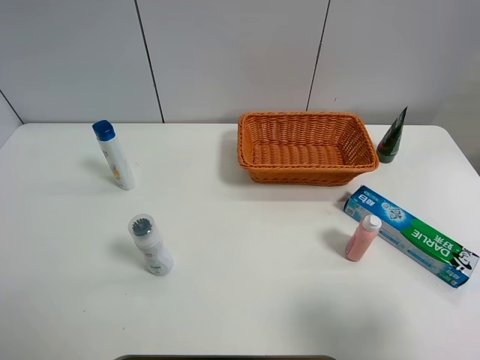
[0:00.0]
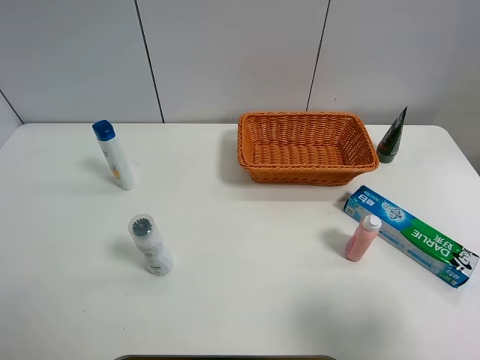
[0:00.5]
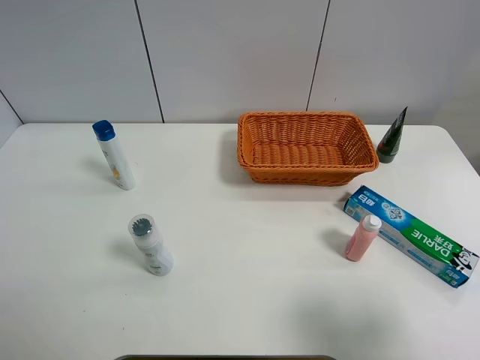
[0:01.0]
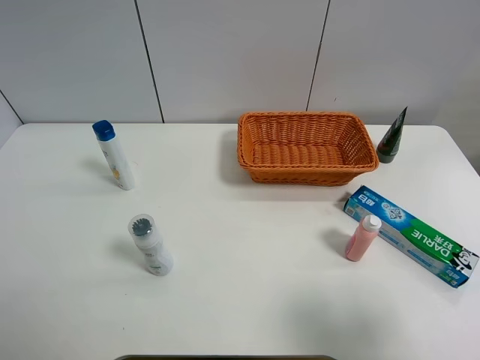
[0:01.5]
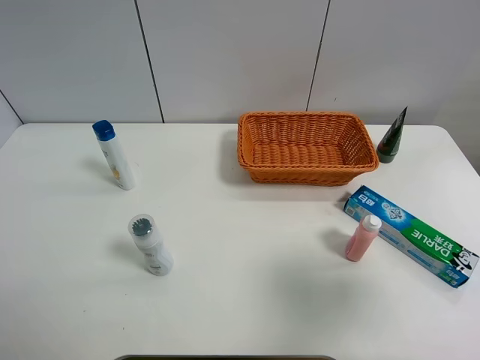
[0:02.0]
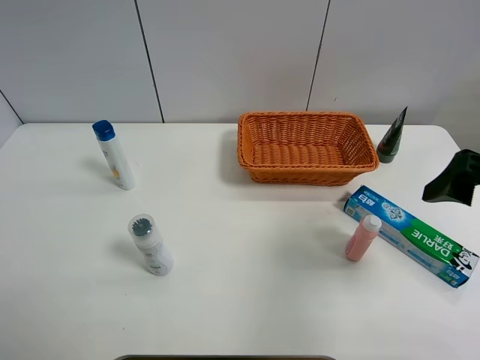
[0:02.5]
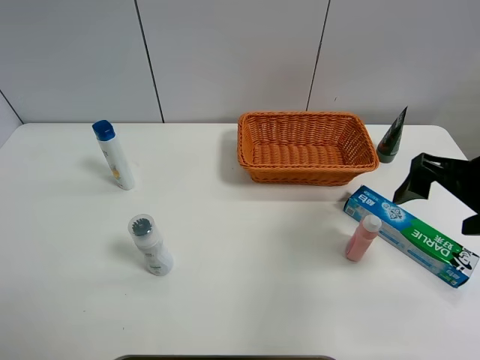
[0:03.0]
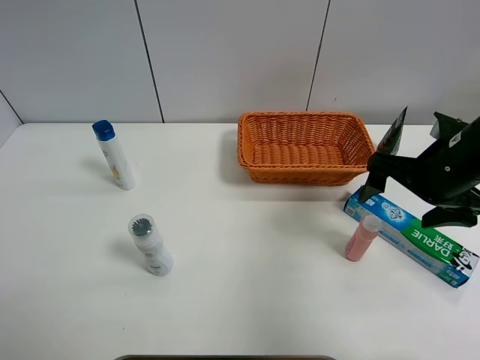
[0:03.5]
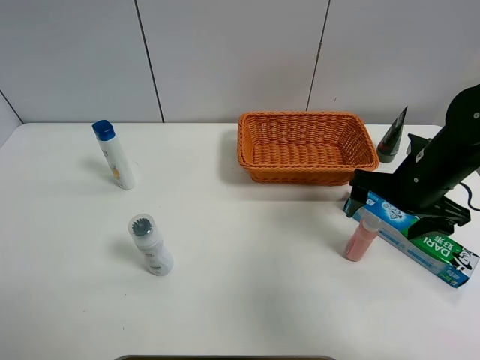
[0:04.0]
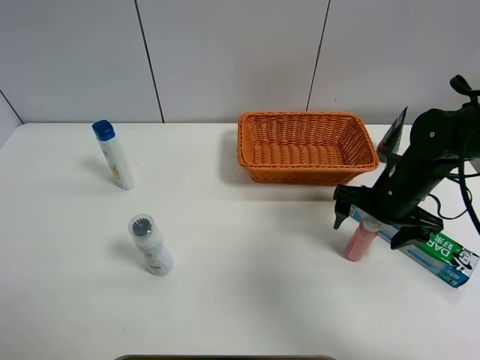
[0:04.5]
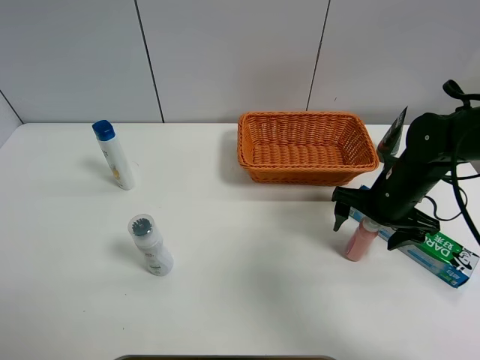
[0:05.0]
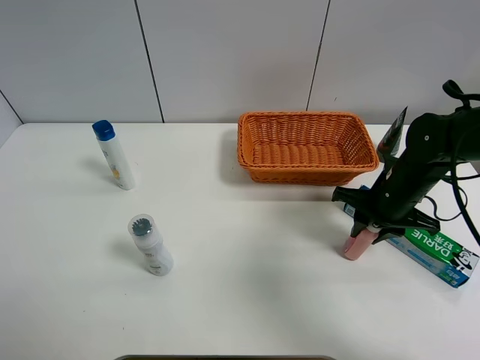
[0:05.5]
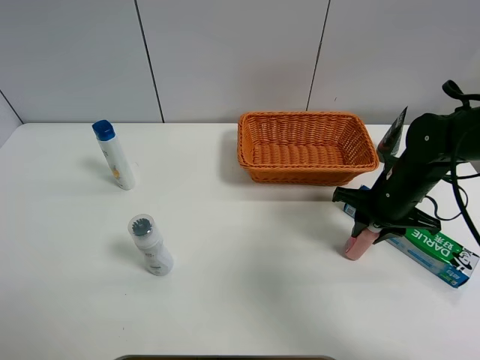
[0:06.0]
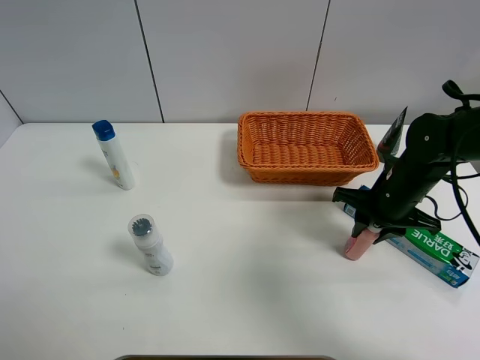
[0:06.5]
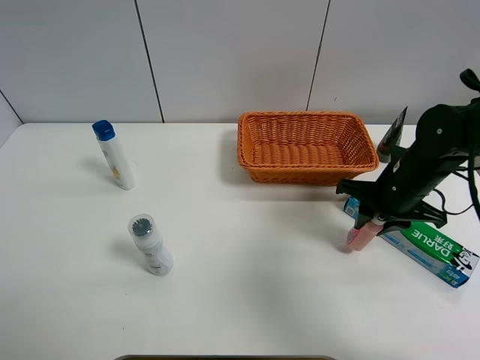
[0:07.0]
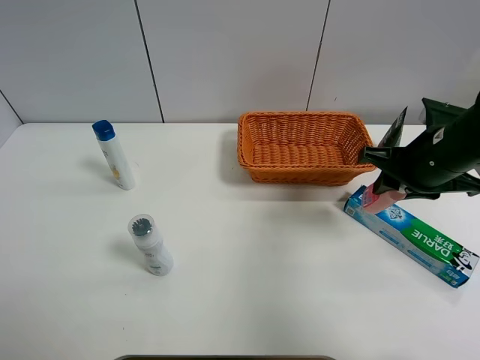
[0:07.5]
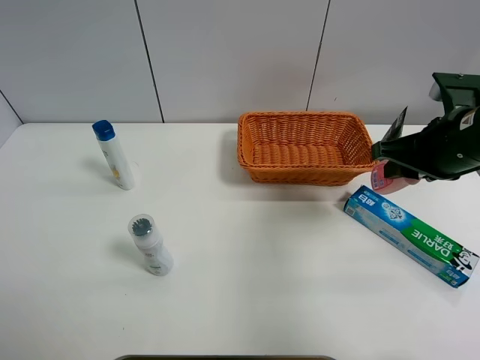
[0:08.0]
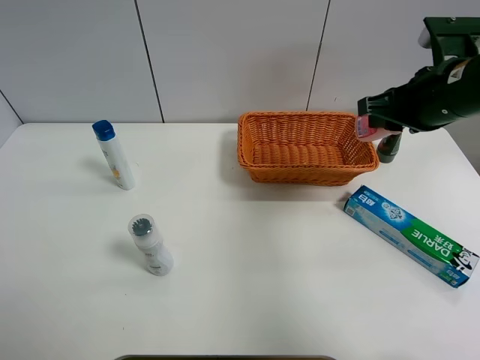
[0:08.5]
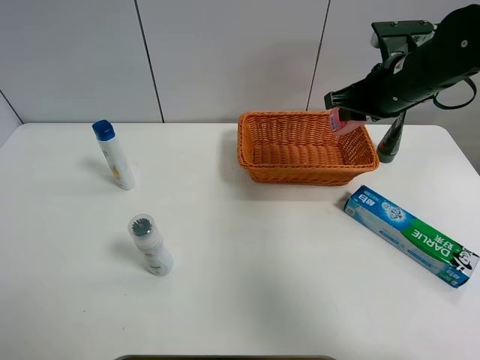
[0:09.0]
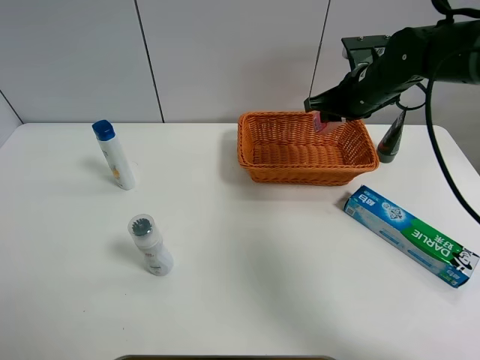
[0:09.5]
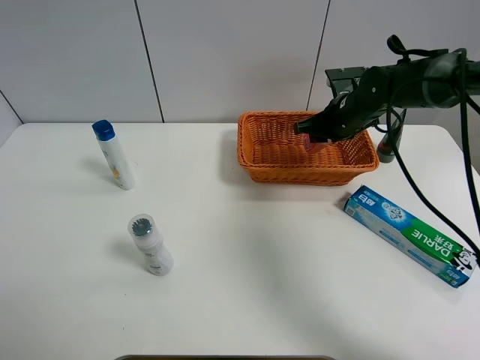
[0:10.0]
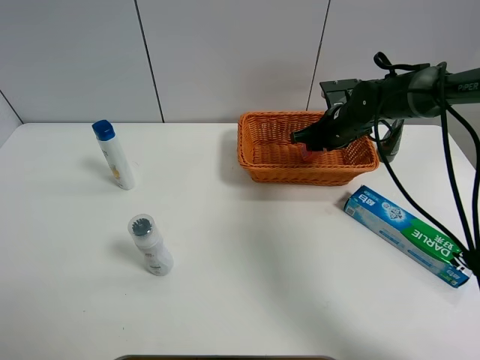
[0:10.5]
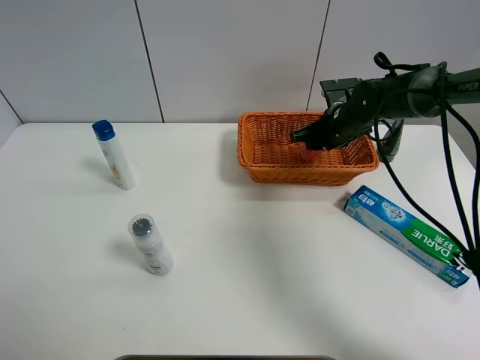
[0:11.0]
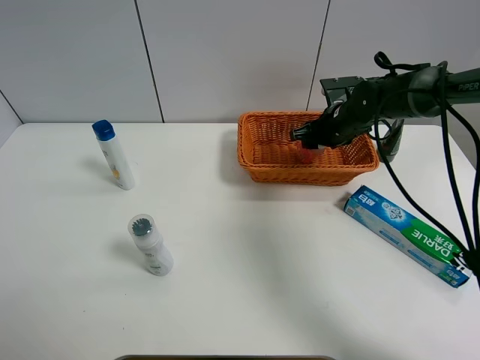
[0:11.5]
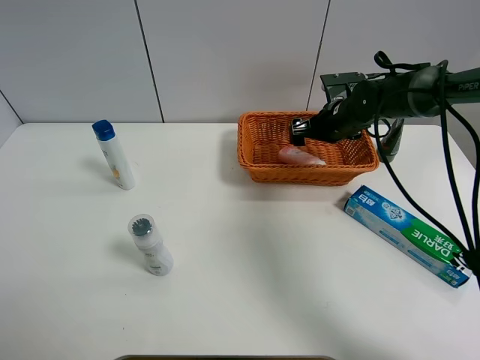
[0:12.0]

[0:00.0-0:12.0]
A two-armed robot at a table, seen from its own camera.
Task of the whole recording: Place the object closest to the toothpaste in the basket.
Step, 0:00.0 to 0:05.5: Grasp the pink laundry detergent with right gripper.
0:00.0 to 0:02.0: The right gripper moves forward and upward, about 10 cm.
0:02.0 to 0:04.0: The right gripper travels forward and downward by approximately 25 cm.
0:04.0 to 0:06.0: The right gripper changes place by approximately 5 cm, and closes up.
0:06.0 to 0:08.0: The right gripper is displaced upward by approximately 15 cm.
0:08.0 to 0:10.0: The right gripper travels forward and downward by some 20 cm.
0:10.0 to 0:12.0: The right gripper opens.

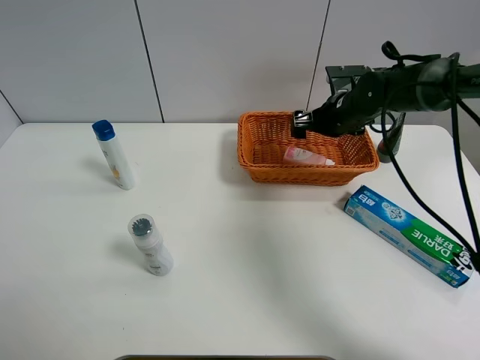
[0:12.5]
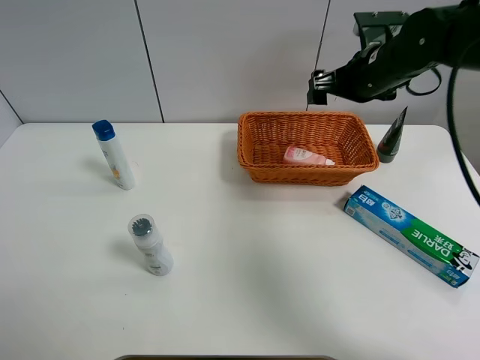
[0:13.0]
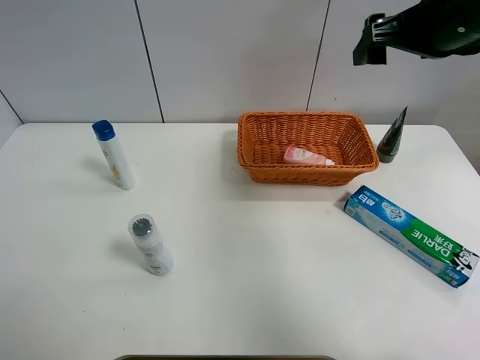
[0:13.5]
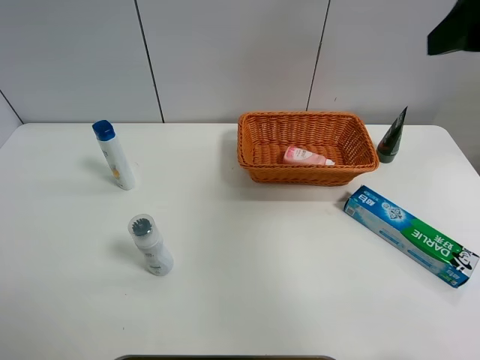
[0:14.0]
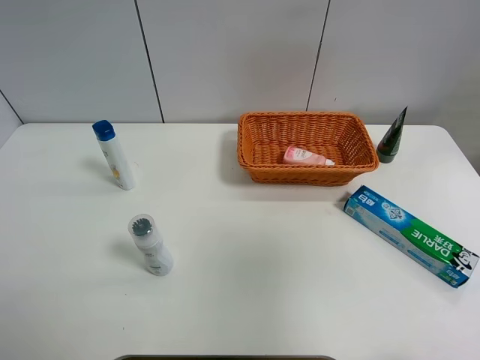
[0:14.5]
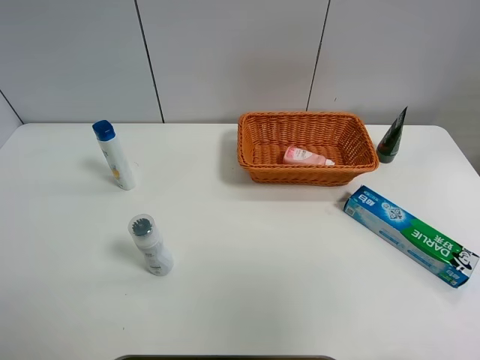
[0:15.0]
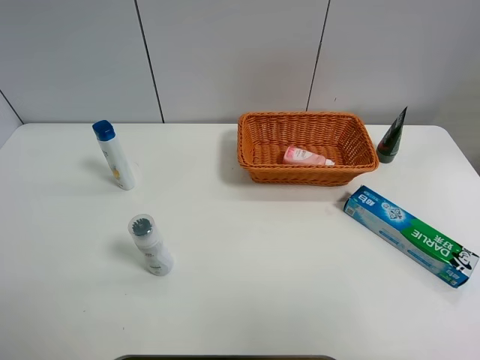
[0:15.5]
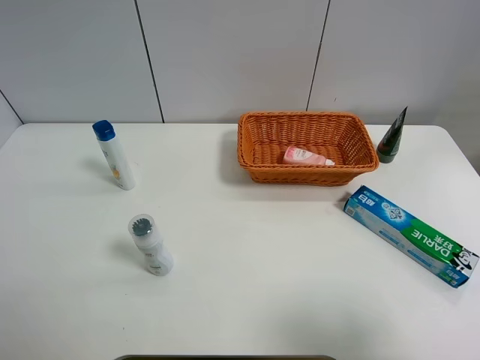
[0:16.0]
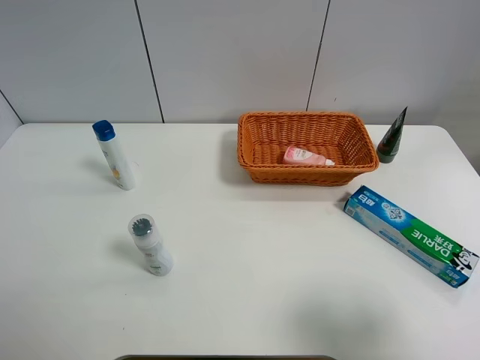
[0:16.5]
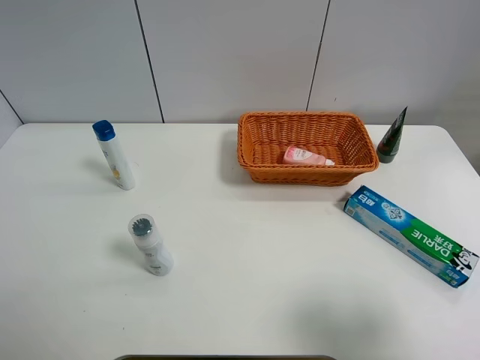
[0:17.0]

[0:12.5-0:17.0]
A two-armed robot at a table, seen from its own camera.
Task of the whole recording: Place the object closest to the toothpaste in the basket.
0:12.5 to 0:14.5: The right gripper heads backward and upward, covering some 50 cm.
0:14.5 to 0:17.0: The right gripper moves downward, approximately 20 cm.

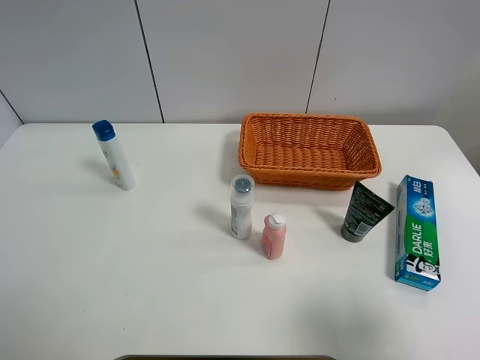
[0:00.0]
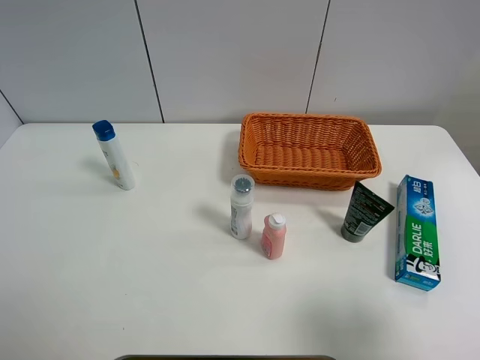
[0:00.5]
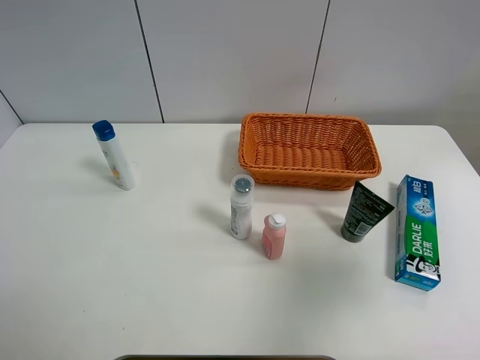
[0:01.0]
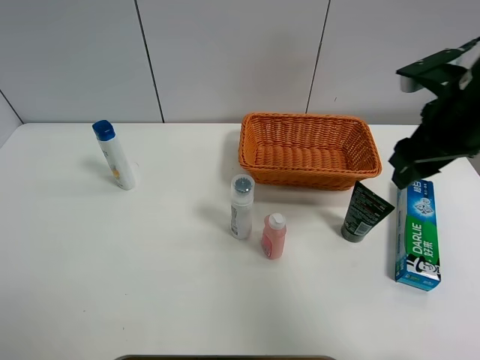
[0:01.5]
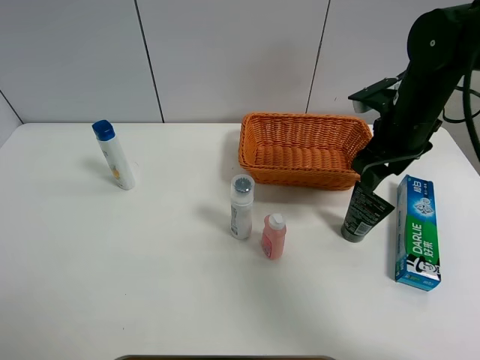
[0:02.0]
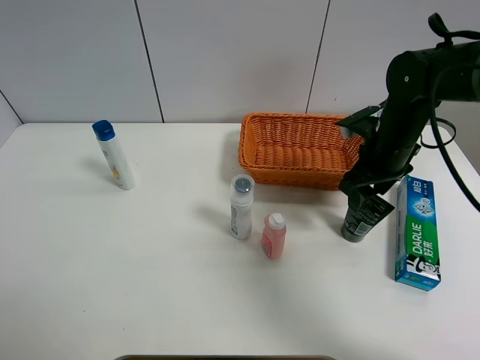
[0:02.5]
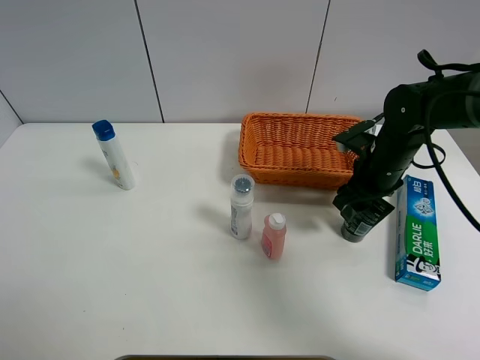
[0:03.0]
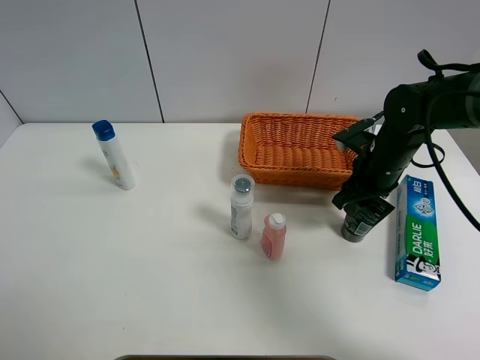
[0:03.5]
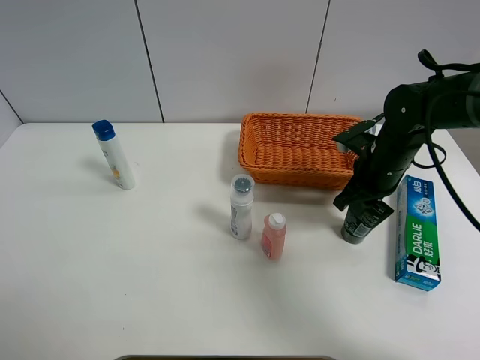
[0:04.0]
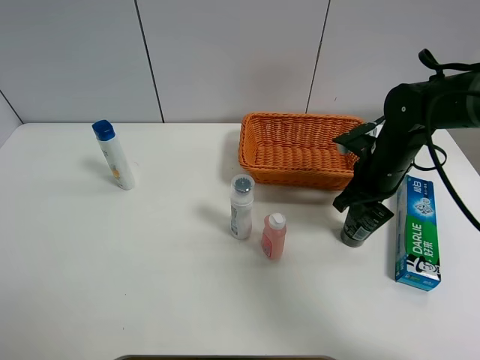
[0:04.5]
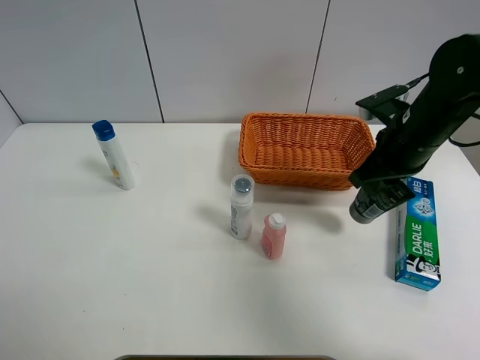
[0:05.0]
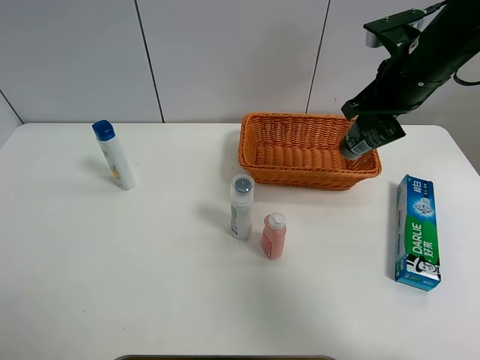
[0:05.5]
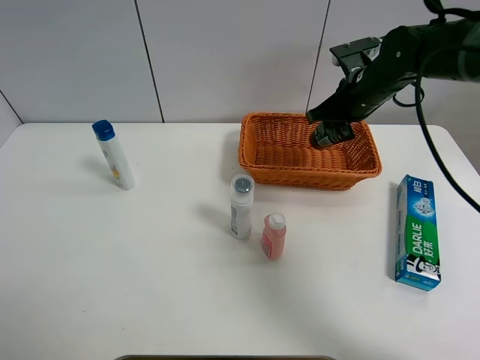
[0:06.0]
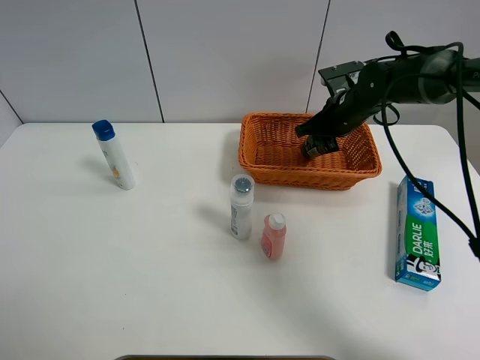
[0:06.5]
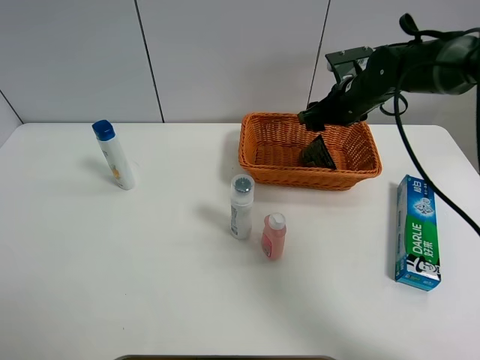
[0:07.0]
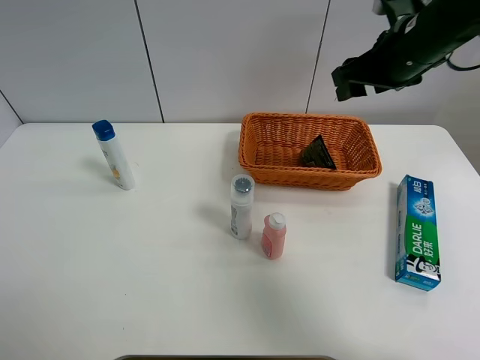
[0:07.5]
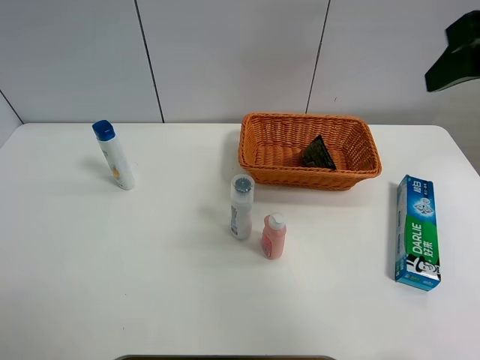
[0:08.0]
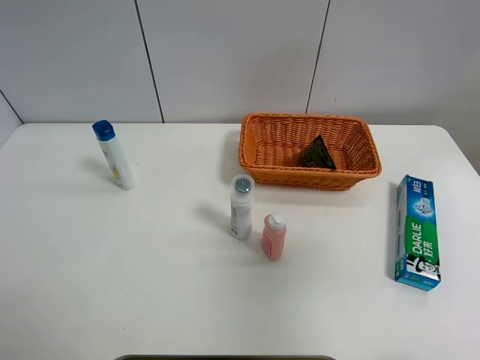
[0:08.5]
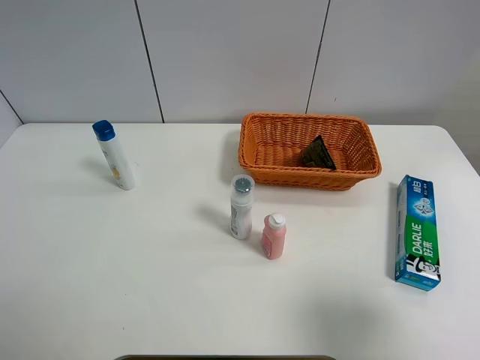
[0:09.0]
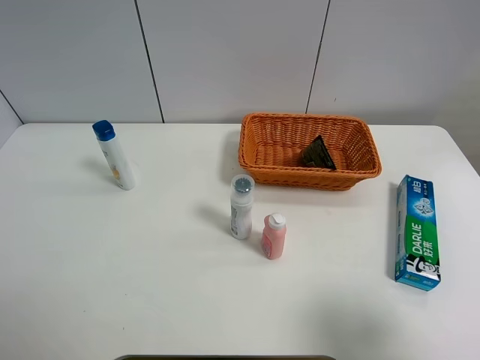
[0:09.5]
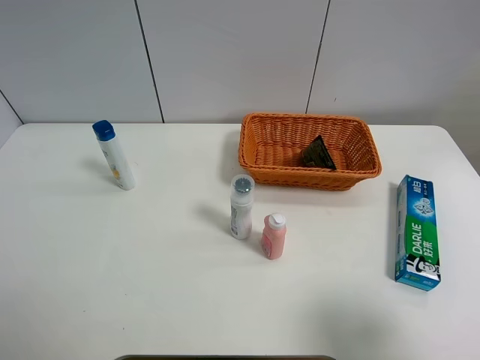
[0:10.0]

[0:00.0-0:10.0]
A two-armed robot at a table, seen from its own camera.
Task of the whole recording: Place the object closest to the toothpaste in the basket.
Step, 0:00.0 to 0:03.5: Grasp the soft facial cleanser with right gripper.
Step, 0:04.0 to 0:07.0: Place the soft facial cleanser in the basket with right gripper.
0:00.0 to 0:02.0: The right gripper is displaced forward by about 35 cm.
0:02.0 to 0:04.0: The right gripper goes some 5 cm downward, and closes up.
0:04.0 to 0:06.0: The right gripper moves forward and upward, roughly 10 cm.
0:06.0 to 0:08.0: The right gripper is displaced backward and upward by roughly 30 cm, and opens up.
0:08.0 to 0:10.0: The right gripper heads backward and downward, covering some 25 cm.
